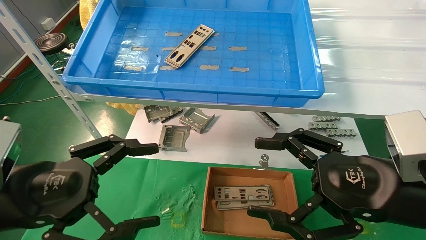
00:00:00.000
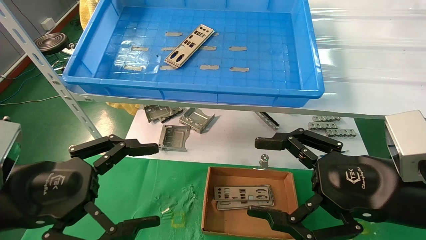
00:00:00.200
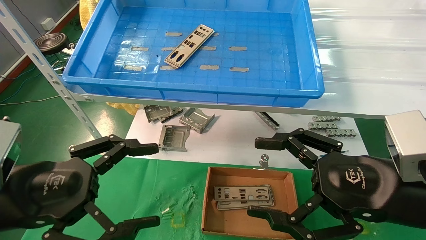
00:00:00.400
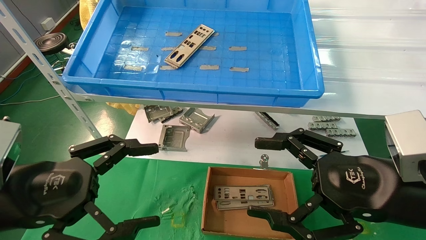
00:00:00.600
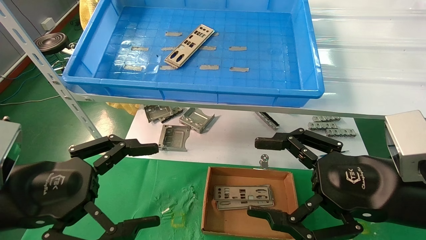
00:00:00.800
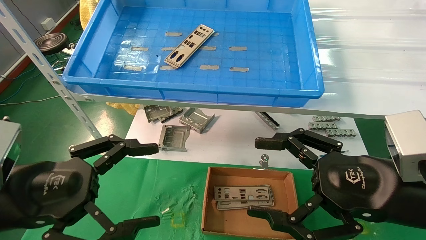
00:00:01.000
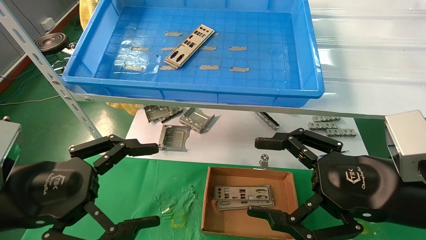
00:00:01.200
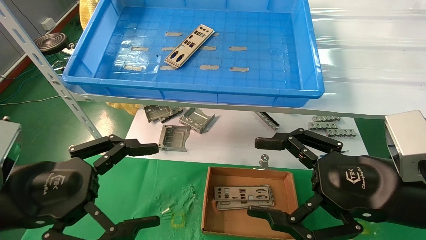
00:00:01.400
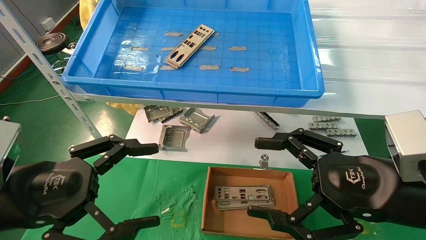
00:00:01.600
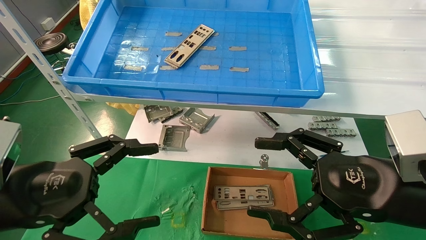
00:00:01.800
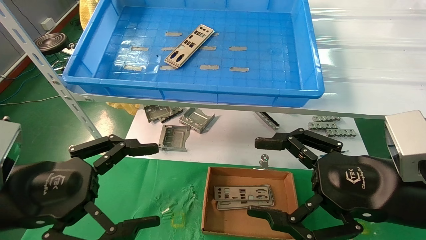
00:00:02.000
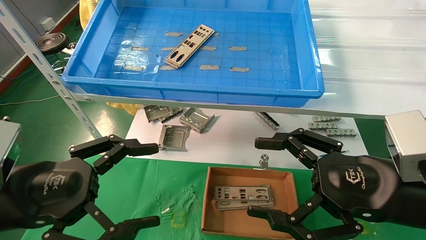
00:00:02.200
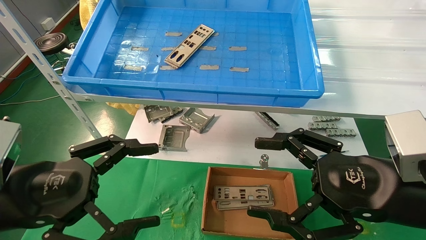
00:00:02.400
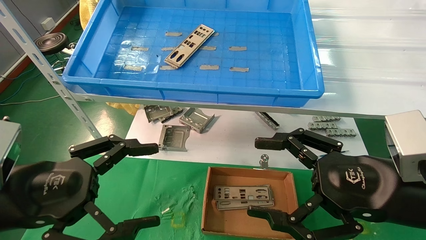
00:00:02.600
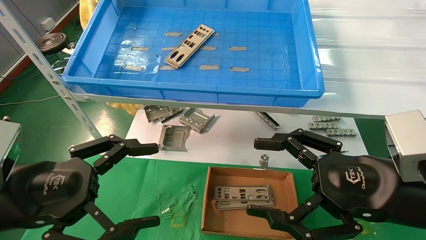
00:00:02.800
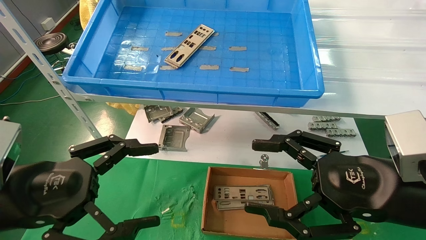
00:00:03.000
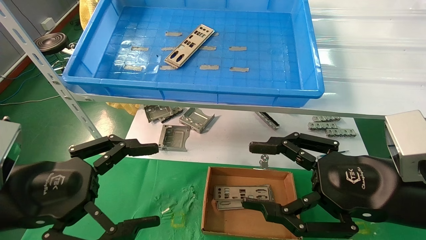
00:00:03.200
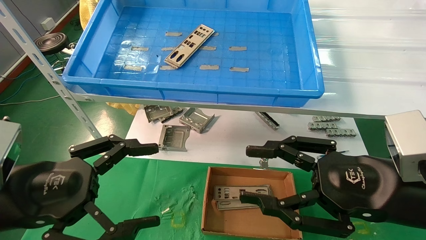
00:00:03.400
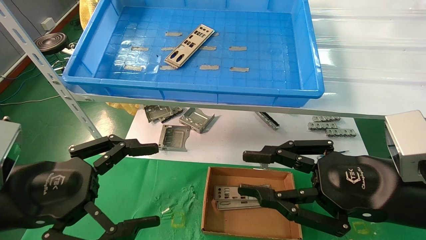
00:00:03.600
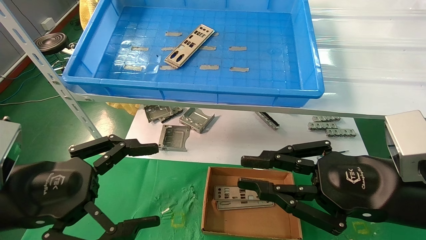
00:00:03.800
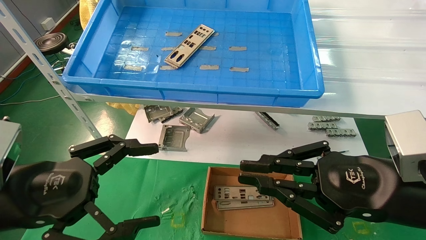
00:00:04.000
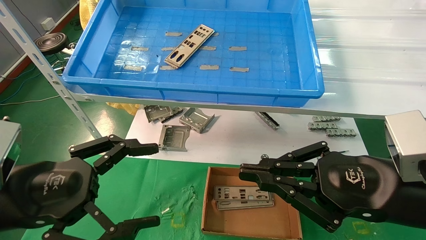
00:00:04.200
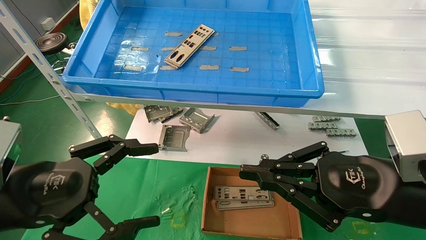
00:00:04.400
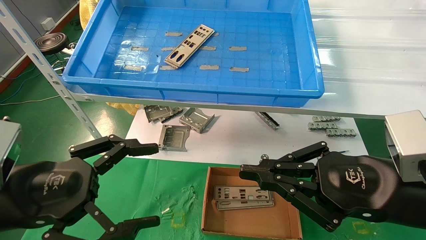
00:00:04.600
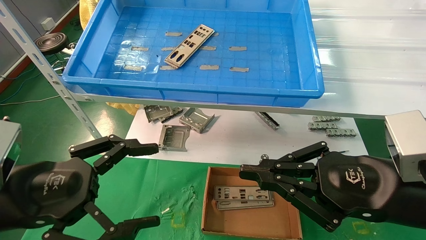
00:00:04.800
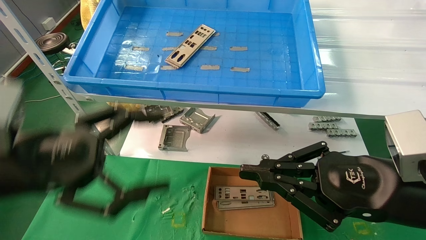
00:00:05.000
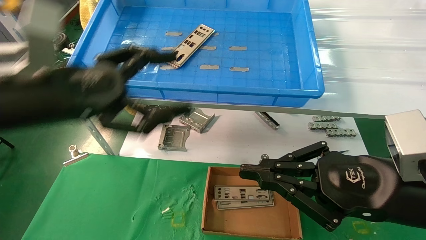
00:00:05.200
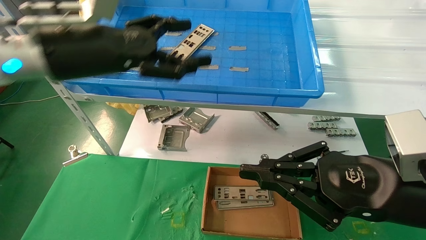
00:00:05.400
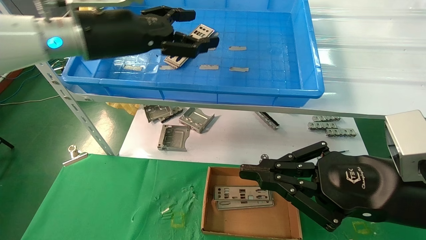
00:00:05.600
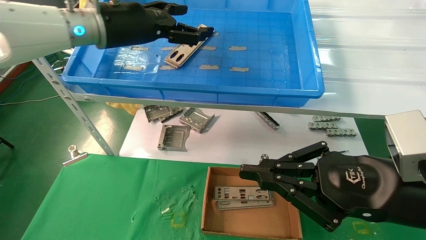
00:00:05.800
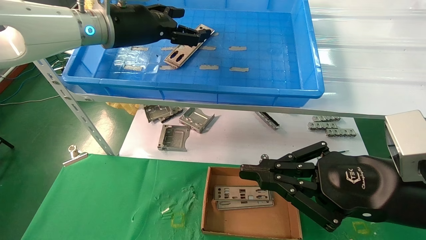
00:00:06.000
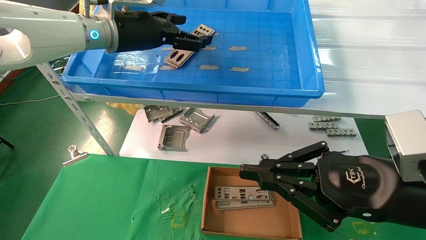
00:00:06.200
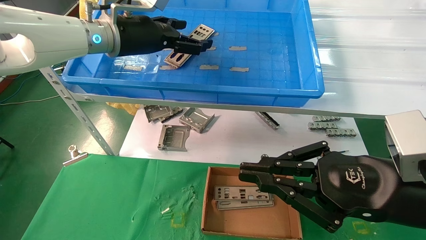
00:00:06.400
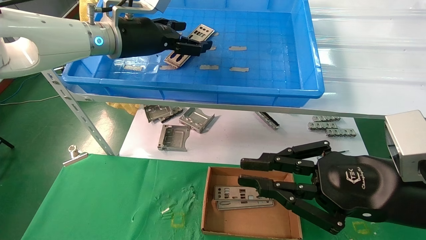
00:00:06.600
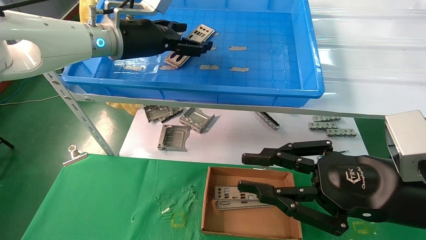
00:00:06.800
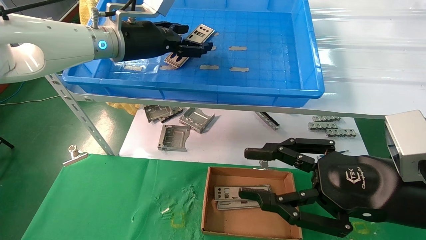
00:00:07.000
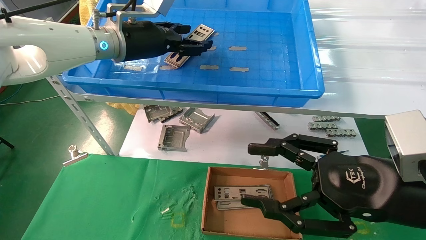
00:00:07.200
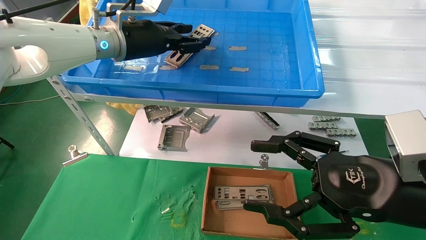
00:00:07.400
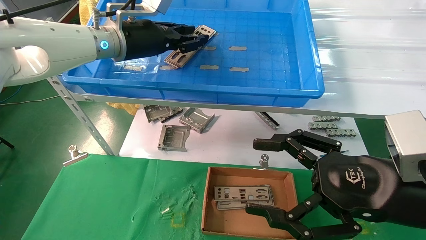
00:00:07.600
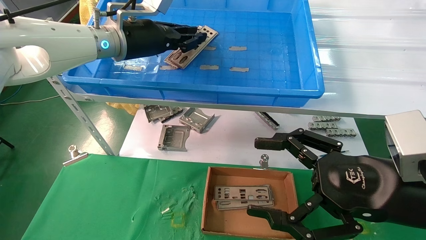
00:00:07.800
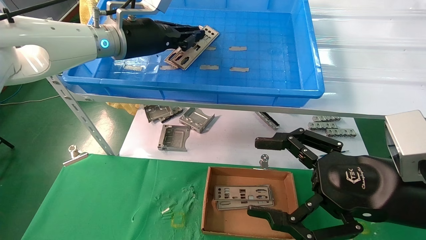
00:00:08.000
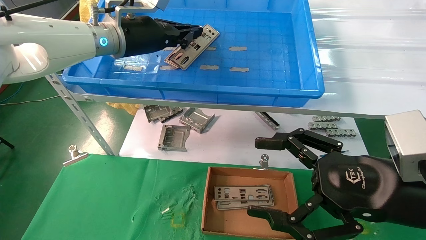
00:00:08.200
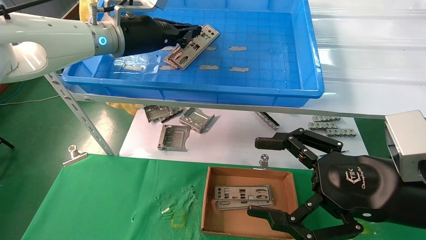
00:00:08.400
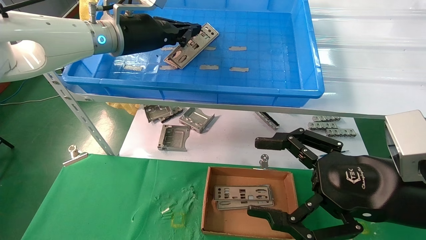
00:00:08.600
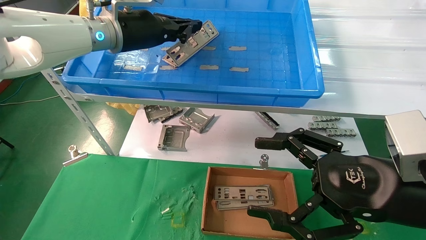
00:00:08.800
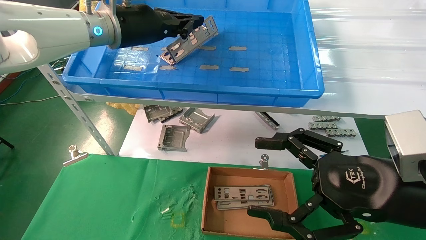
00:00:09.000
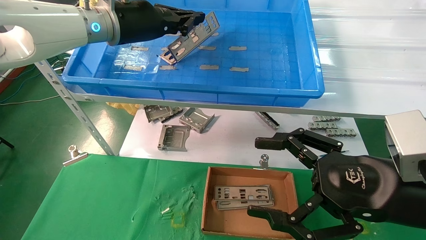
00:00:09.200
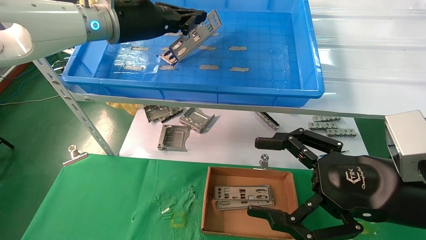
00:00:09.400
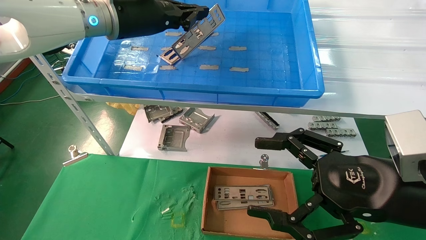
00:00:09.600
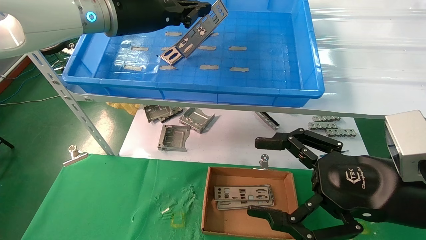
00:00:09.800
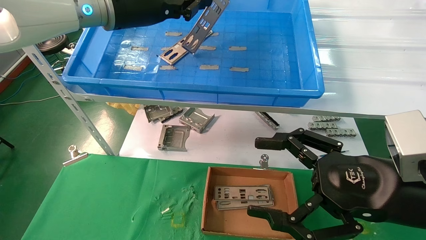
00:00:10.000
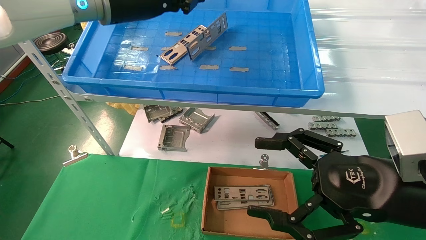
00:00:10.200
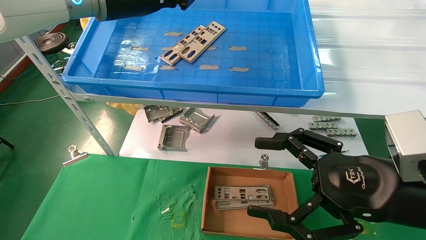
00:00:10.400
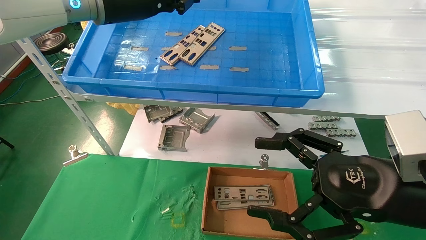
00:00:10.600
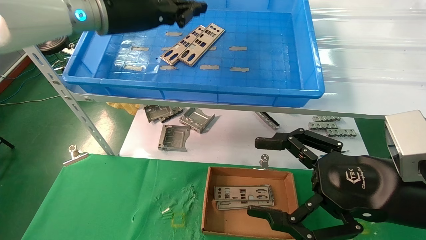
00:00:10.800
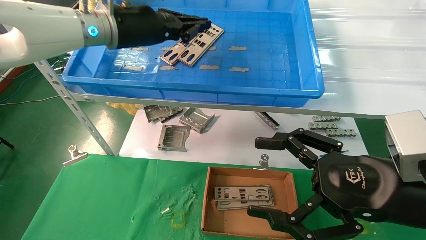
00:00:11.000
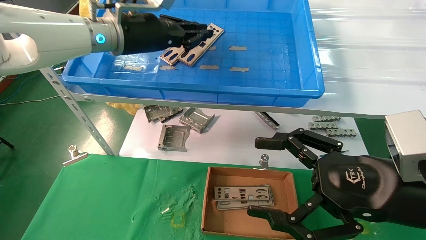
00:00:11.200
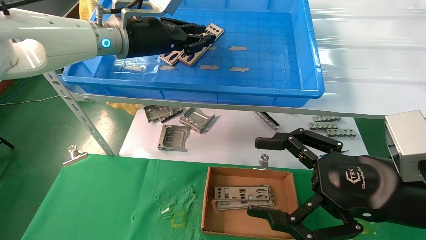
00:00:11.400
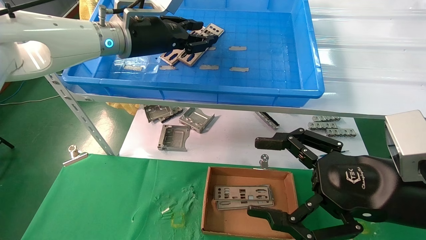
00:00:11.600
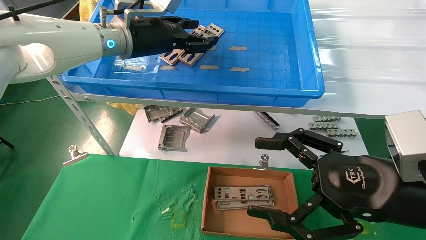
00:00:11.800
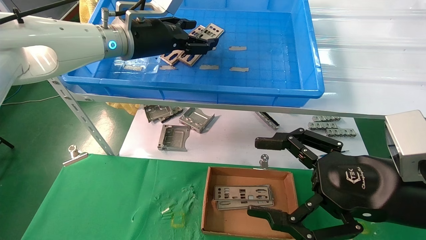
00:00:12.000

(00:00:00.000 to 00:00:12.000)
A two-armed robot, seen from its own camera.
Task of the whole recording: pick up the parts on the tray and put them in the cardboard box.
00:00:00.000 - 00:00:03.000: The two grippers keep their place.
00:00:03.000 - 00:00:04.400: The right gripper closes its fingers.
00:00:04.400 - 00:00:06.000: The left gripper heads forward, upward and to the right, covering roughly 30 cm.
00:00:06.000 - 00:00:07.600: The left gripper closes. The right gripper opens its fingers.
00:00:07.600 - 00:00:09.000: The left gripper closes up.
00:00:09.000 - 00:00:10.400: The left gripper ends up about 5 cm from where it was.
00:00:10.400 - 00:00:12.000: The left gripper moves downward, some 5 cm, and opens up.

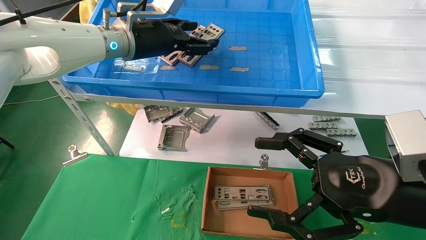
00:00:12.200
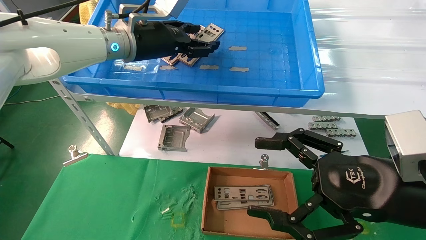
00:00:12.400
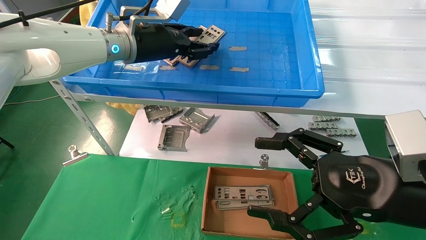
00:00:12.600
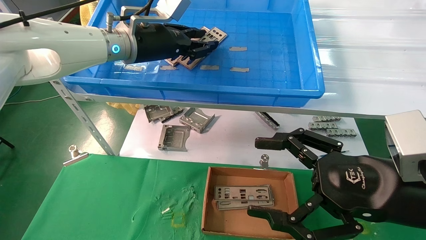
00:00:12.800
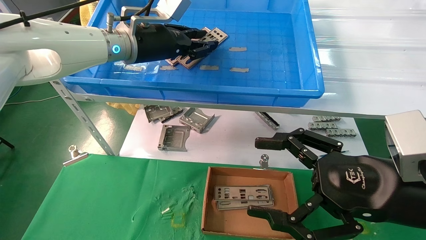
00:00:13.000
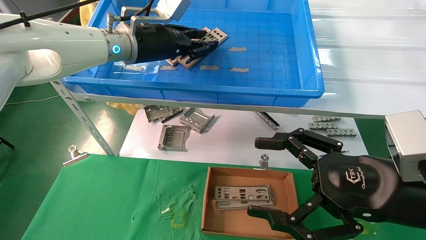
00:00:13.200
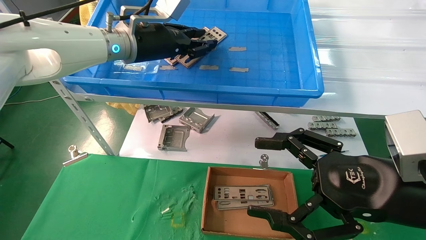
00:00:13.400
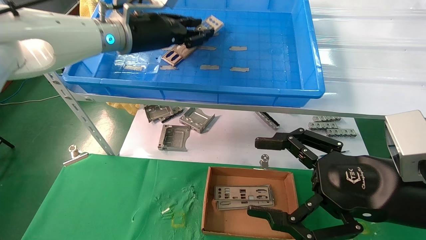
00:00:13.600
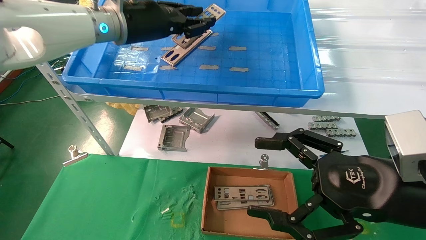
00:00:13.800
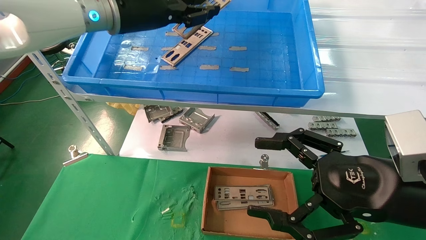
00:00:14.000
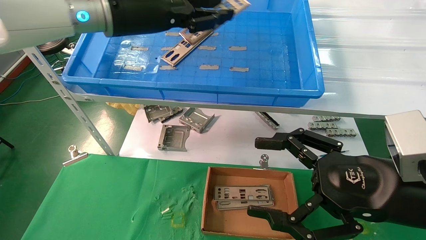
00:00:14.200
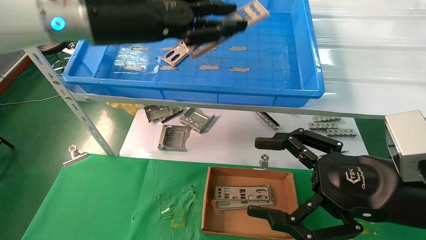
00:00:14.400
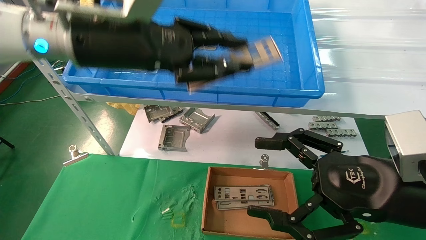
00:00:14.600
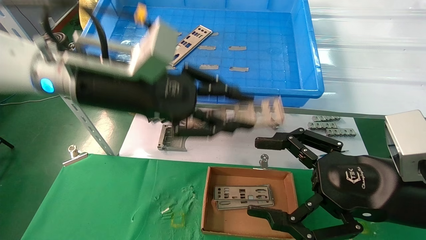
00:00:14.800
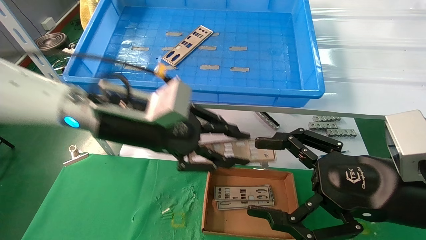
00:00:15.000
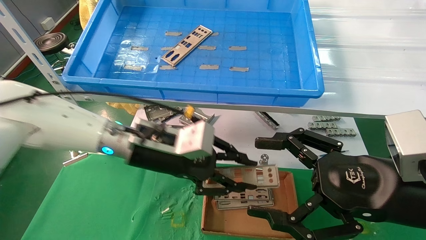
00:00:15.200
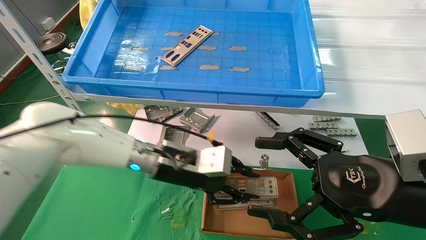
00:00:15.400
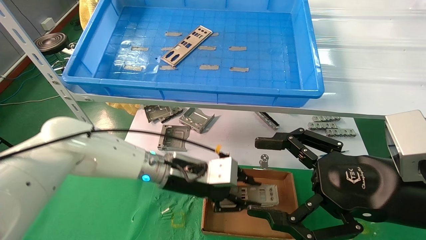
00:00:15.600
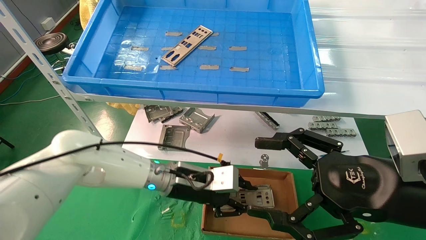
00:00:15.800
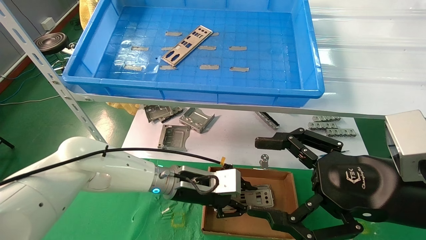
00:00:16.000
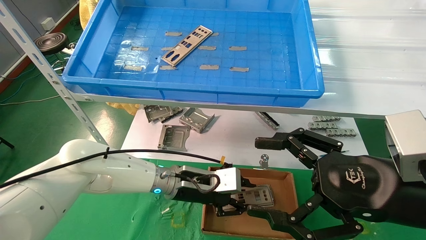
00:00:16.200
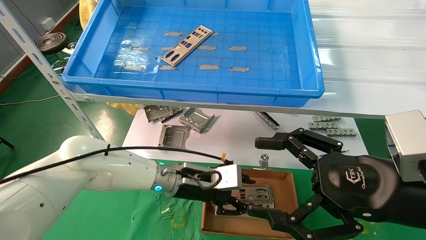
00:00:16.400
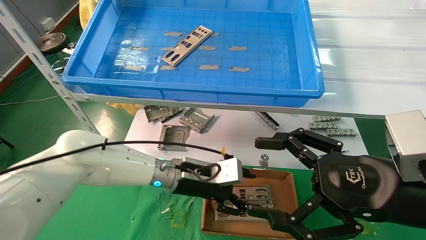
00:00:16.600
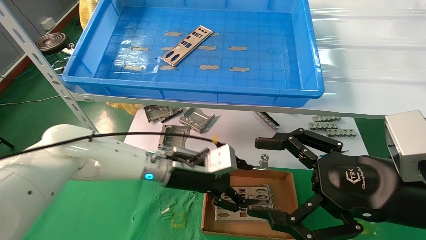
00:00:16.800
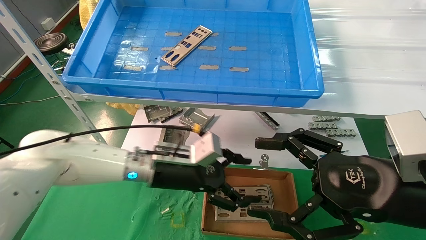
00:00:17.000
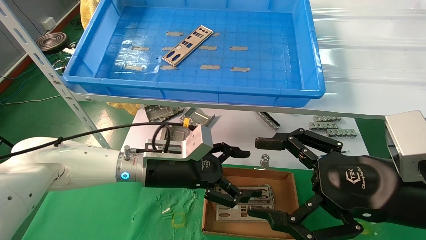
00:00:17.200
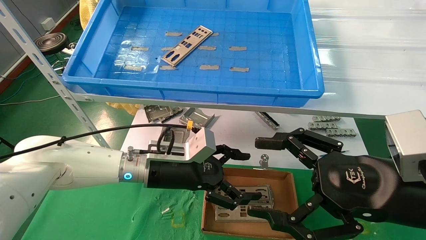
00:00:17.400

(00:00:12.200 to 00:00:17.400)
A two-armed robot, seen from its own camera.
Task of the whole recording: pick up the parts on the tray and put them in the cardboard box.
Step, 00:00:13.200 - 00:00:16.600: Place the IO bracket into the ingredient slot.
00:00:12.200 - 00:00:14.000: The left gripper moves about 5 cm, and closes its fingers.
00:00:14.000 - 00:00:15.600: The left gripper moves downward, roughly 30 cm.
00:00:15.600 - 00:00:17.400: The left gripper opens its fingers.
